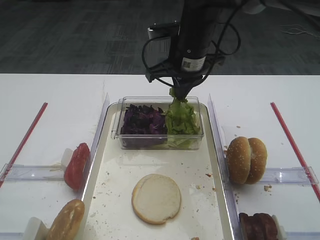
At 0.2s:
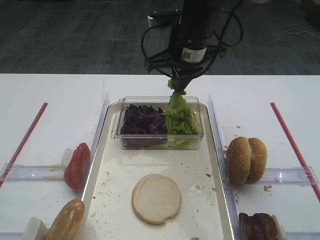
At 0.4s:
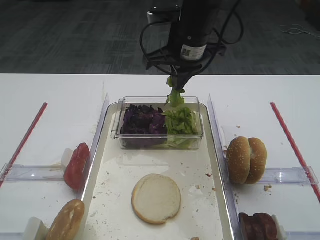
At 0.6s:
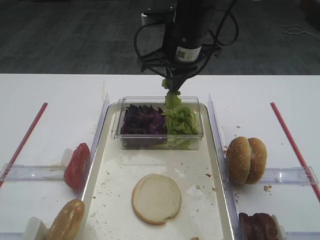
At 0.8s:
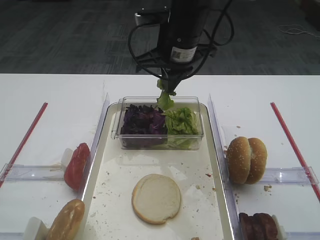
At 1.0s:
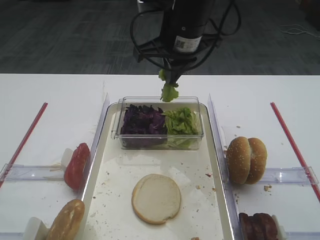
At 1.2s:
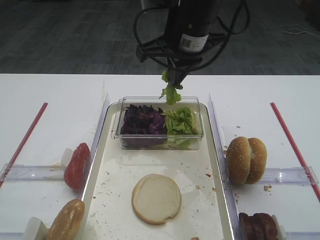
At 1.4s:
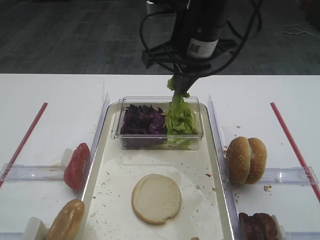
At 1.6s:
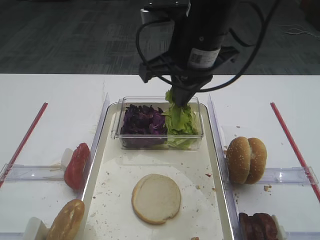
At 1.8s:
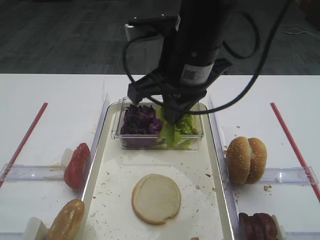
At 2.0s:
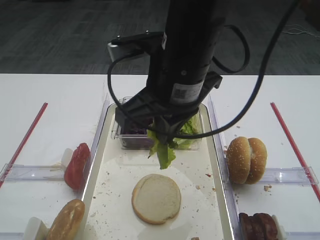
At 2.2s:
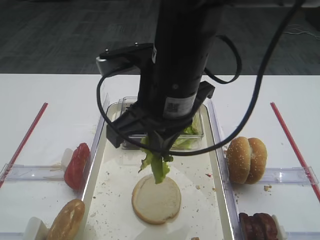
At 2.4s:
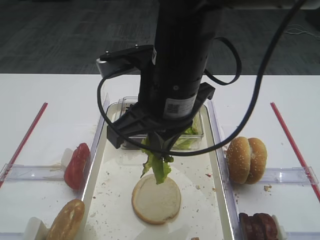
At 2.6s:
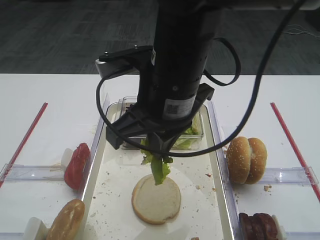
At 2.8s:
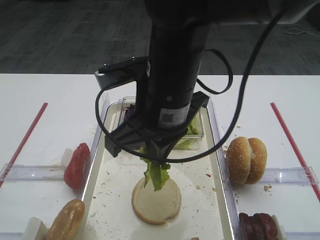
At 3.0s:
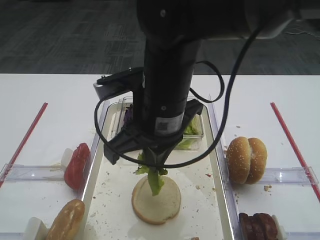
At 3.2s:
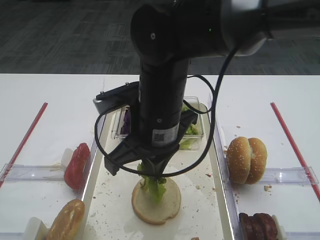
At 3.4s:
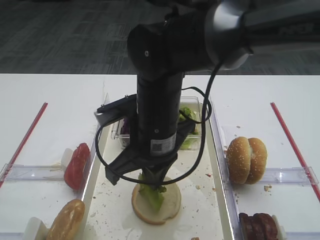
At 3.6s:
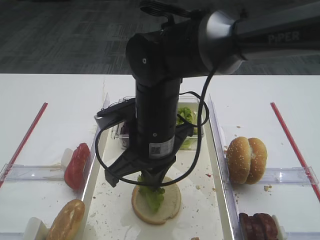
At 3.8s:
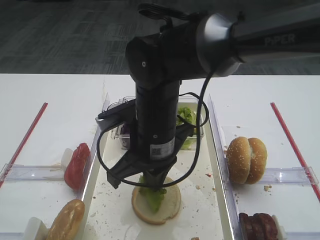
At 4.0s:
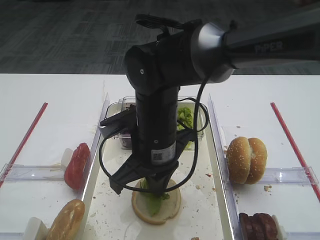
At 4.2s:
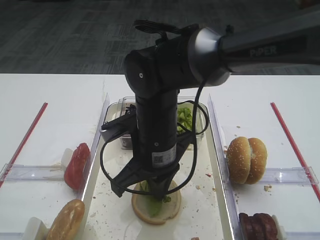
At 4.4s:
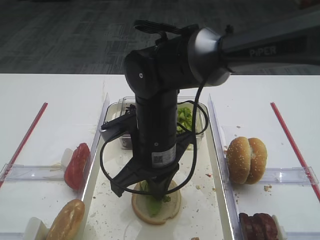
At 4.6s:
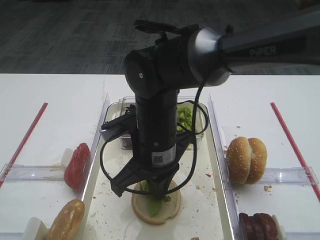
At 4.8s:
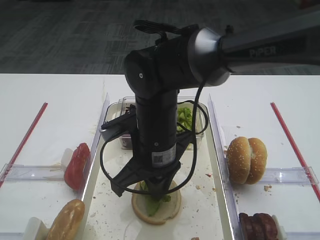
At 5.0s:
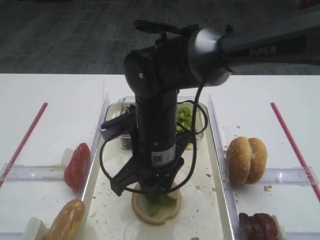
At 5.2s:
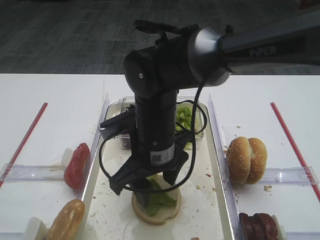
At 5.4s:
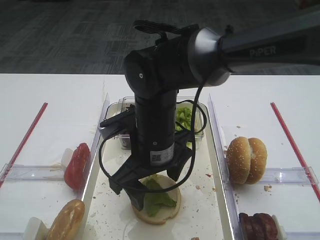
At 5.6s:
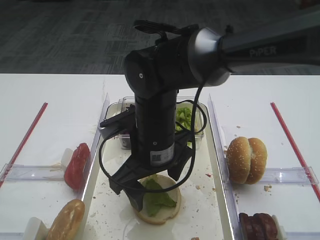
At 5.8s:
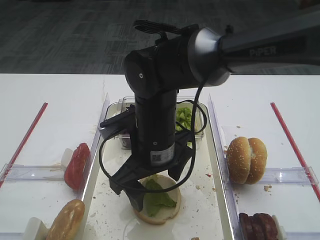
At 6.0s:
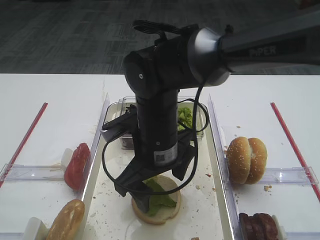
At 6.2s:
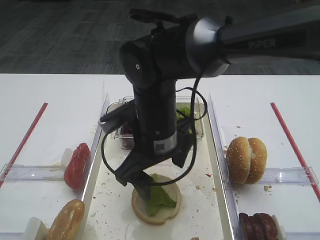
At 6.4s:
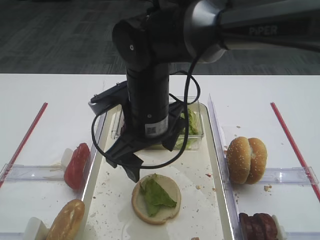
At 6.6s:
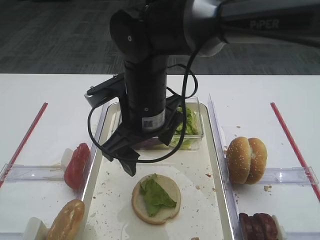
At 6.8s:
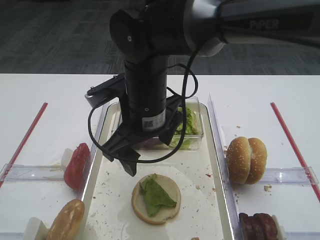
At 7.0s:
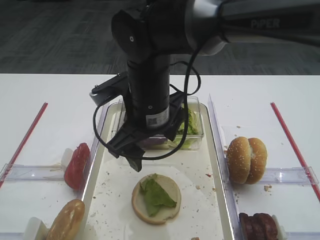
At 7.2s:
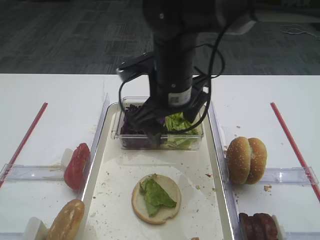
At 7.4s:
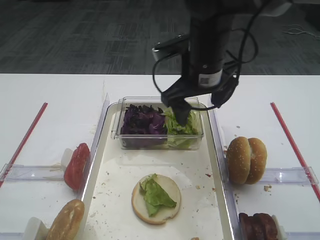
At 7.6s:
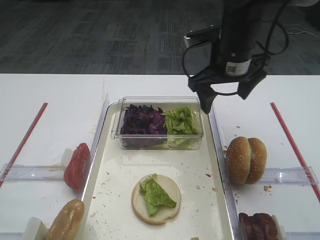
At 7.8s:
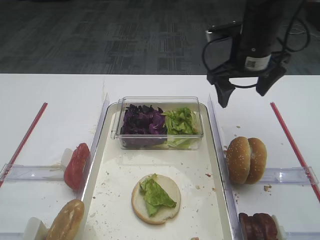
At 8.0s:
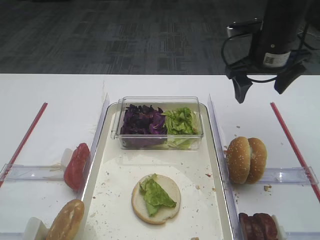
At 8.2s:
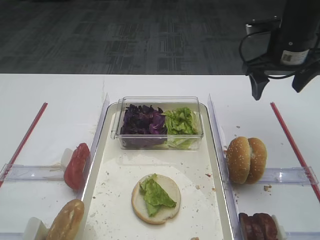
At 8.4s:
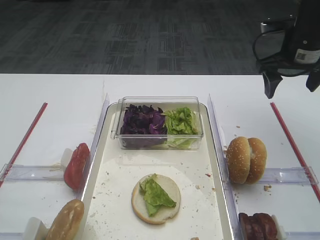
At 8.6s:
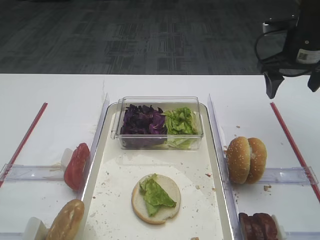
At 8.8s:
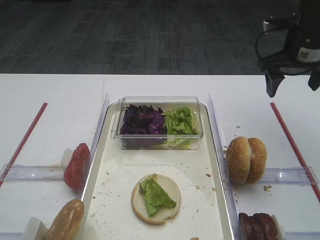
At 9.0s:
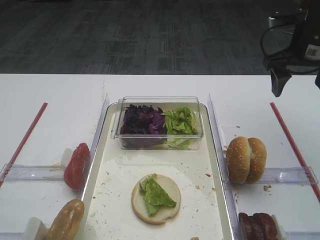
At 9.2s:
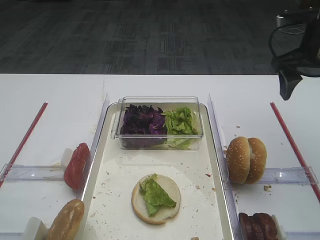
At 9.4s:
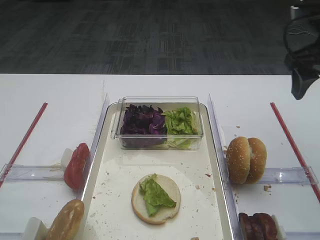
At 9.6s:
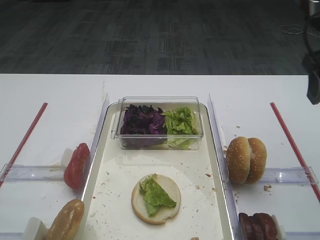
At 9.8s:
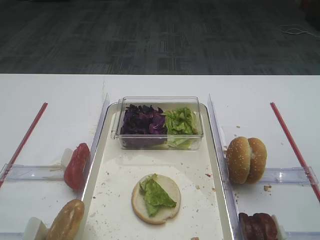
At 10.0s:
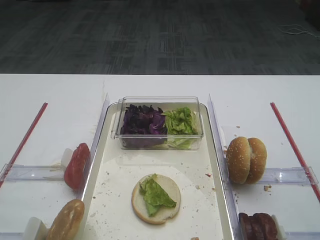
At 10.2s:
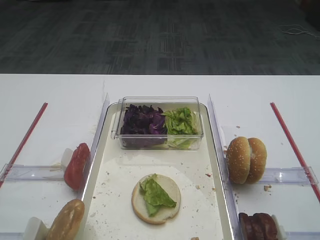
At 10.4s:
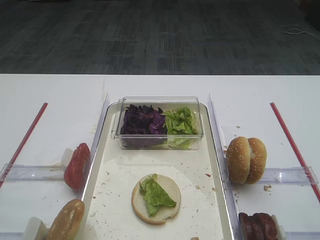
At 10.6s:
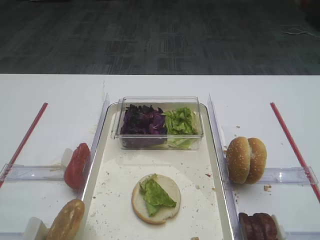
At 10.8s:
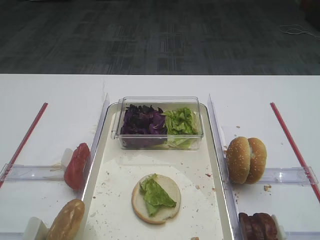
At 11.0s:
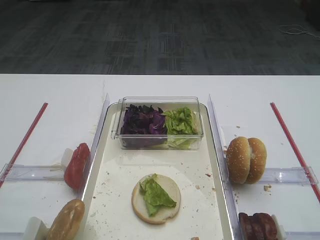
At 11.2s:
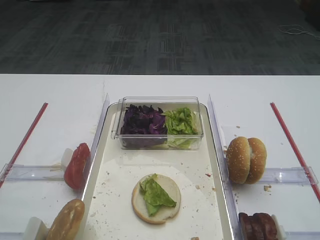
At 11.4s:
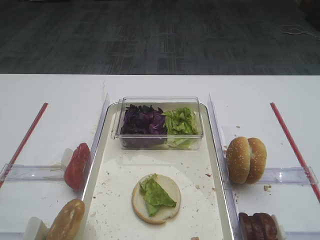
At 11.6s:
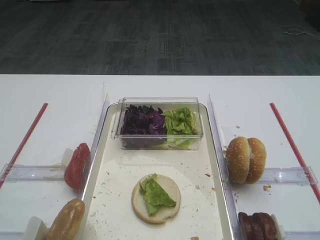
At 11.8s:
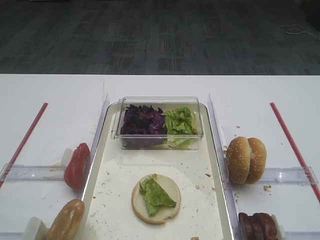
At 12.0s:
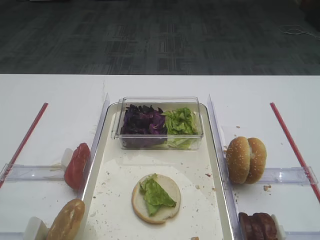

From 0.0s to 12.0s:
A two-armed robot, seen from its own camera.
Step, from 1.0s to 7.0s: Place the lettuce leaf on the bread slice with the right gripper.
From 0.0s to 1.6s: The right gripper shifts about 10 cm backward and upward.
From 1.6s to 3.0s: The right gripper is displaced backward and to the left by some 10 cm.
From 3.0s to 4.4s: The right gripper heads downward, covering some 10 cm.
From 4.4s to 6.0s: The right gripper opens its fingers.
From 6.0s to 7.6s: The right gripper heads to the right, forward and upward, covering roughly 15 cm.
From 7.6s to 9.0s: The right gripper is displaced to the right by about 15 cm.
From 9.0s to 10.4s: The right gripper heads backward, covering about 30 cm.

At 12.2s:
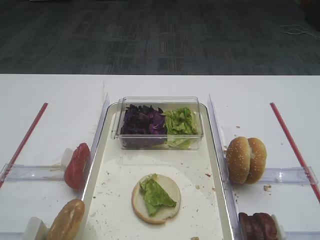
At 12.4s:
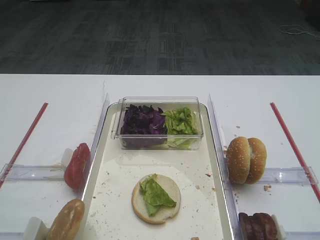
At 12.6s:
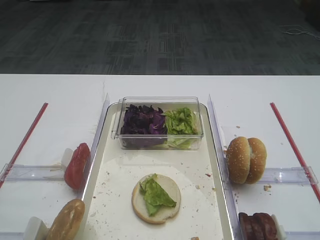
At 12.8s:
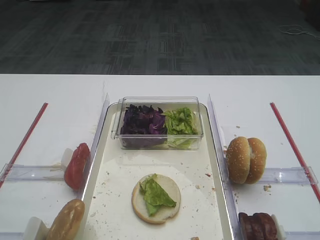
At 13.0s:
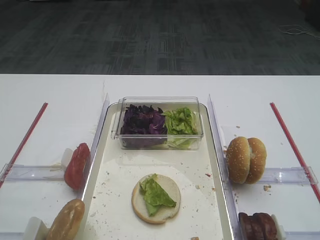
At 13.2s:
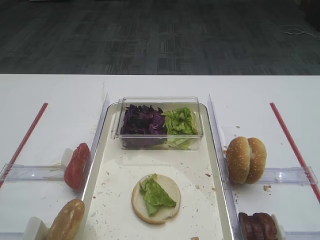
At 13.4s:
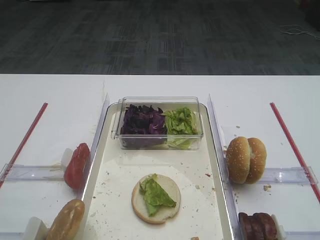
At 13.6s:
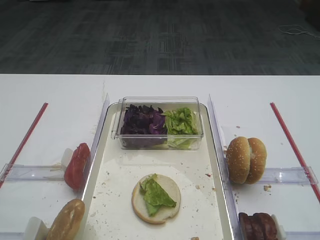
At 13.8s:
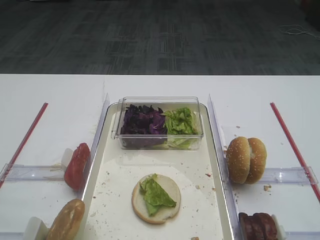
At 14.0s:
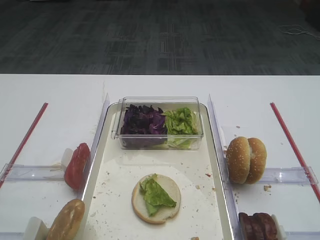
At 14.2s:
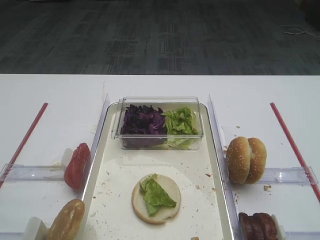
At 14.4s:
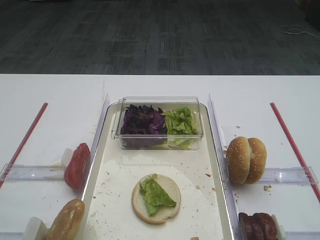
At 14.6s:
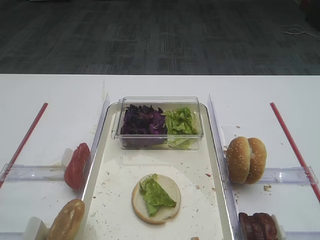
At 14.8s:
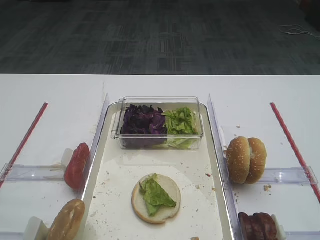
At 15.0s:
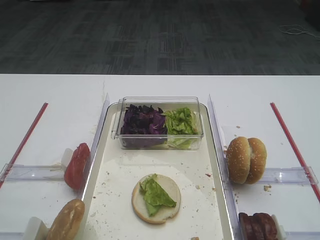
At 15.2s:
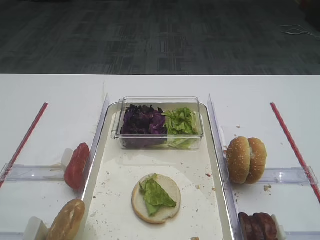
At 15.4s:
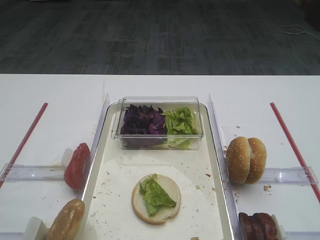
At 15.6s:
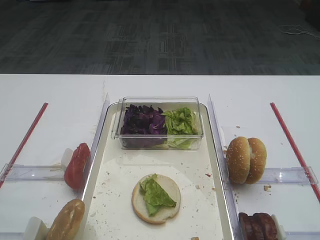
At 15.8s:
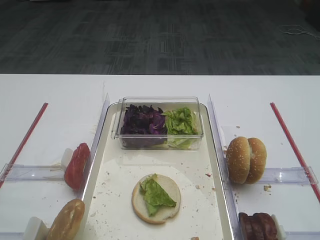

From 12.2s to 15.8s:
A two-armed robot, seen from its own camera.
From 12.2s to 15.8s: The two grippers keep their place.

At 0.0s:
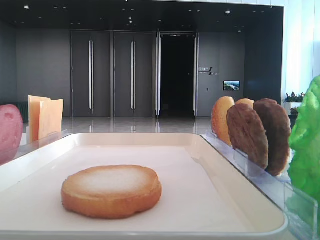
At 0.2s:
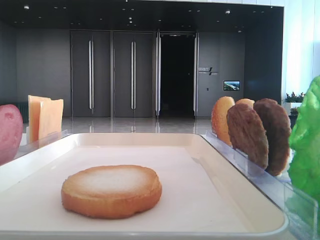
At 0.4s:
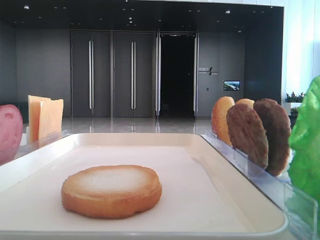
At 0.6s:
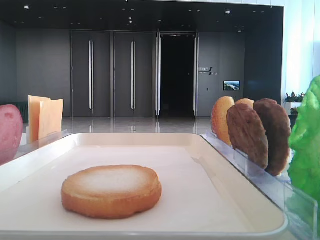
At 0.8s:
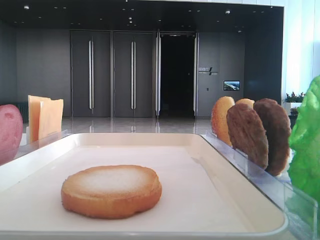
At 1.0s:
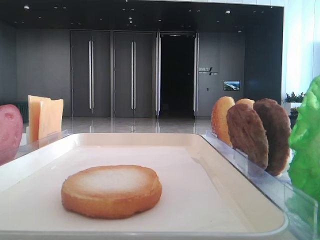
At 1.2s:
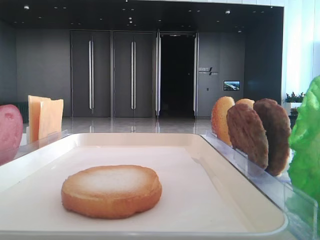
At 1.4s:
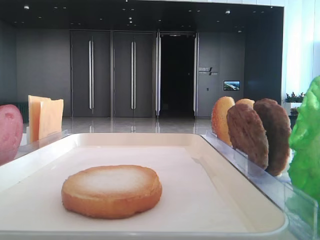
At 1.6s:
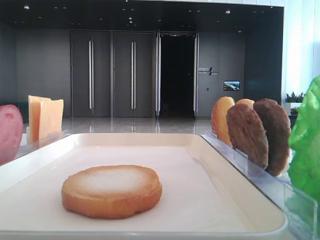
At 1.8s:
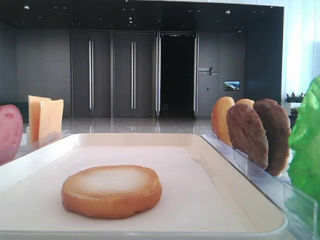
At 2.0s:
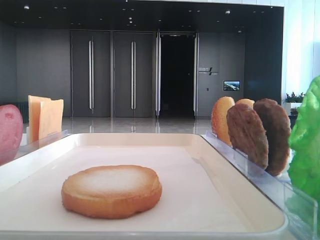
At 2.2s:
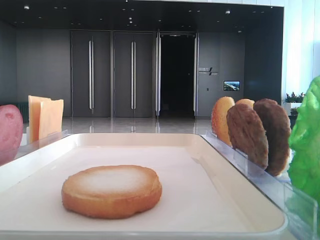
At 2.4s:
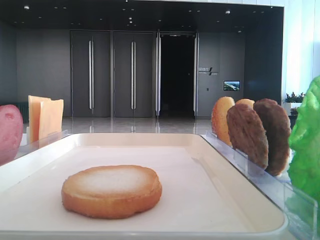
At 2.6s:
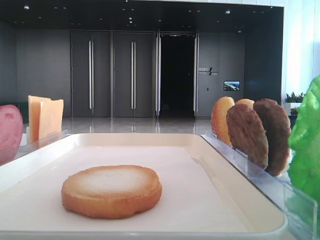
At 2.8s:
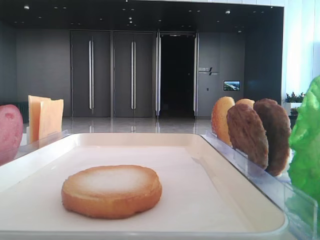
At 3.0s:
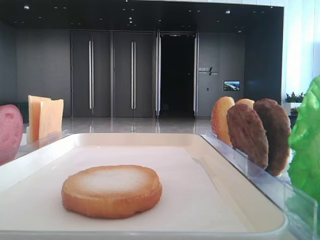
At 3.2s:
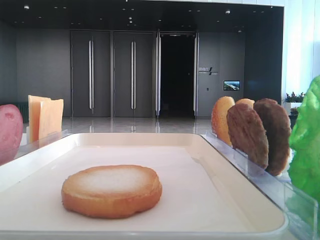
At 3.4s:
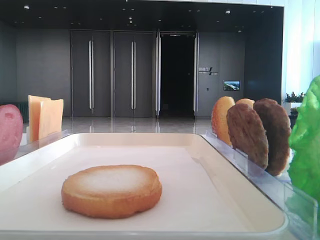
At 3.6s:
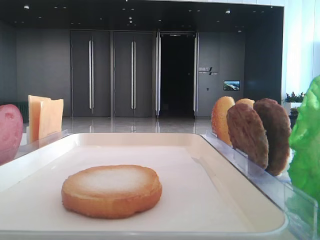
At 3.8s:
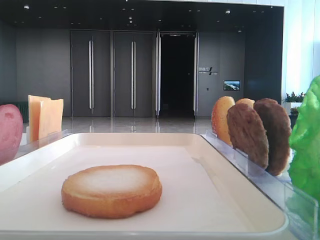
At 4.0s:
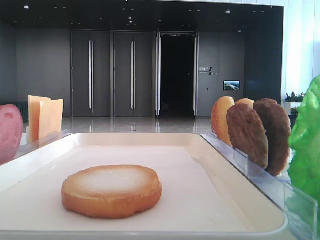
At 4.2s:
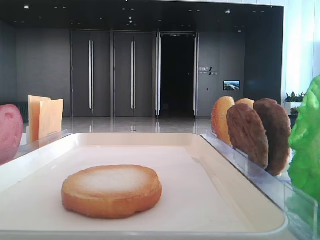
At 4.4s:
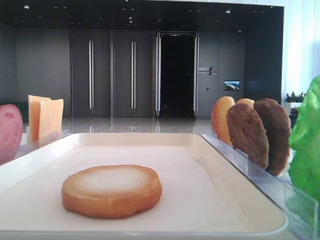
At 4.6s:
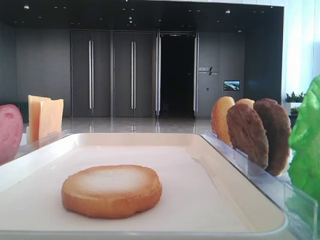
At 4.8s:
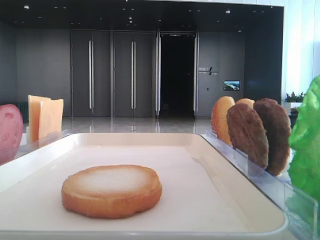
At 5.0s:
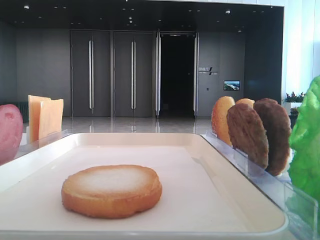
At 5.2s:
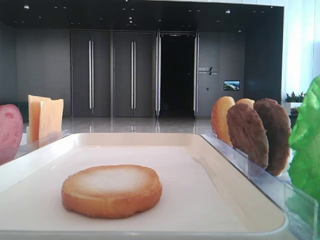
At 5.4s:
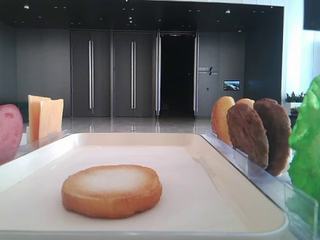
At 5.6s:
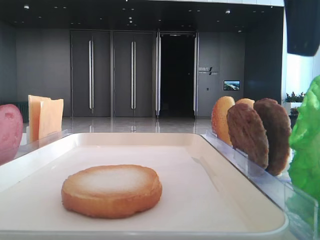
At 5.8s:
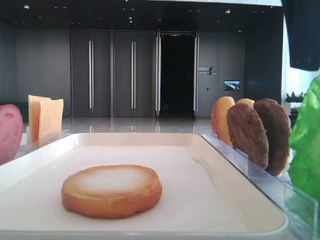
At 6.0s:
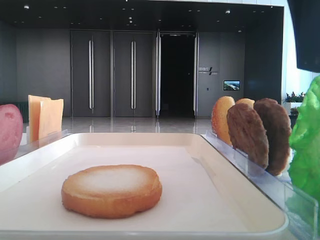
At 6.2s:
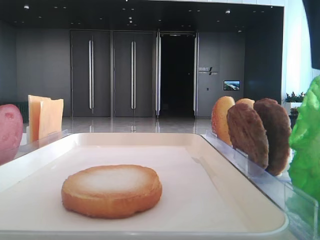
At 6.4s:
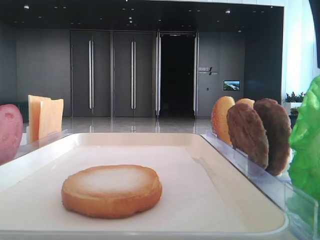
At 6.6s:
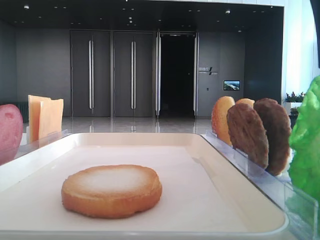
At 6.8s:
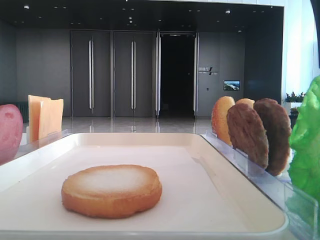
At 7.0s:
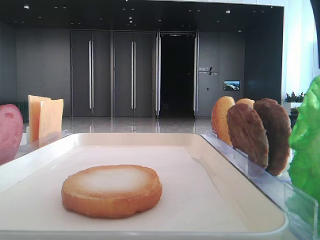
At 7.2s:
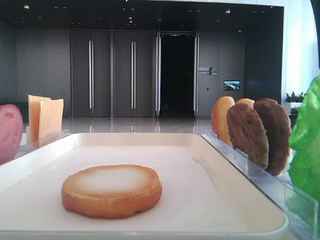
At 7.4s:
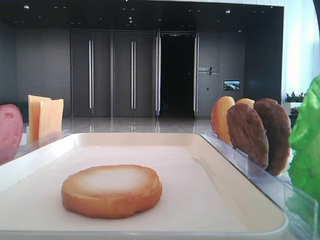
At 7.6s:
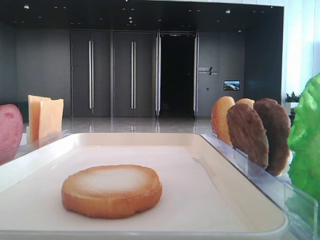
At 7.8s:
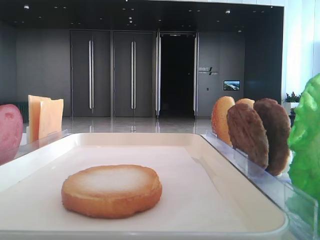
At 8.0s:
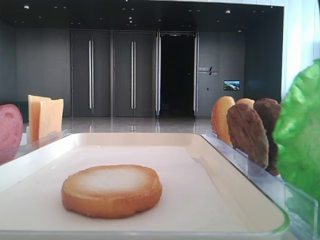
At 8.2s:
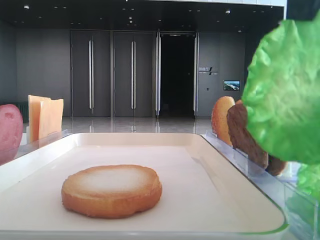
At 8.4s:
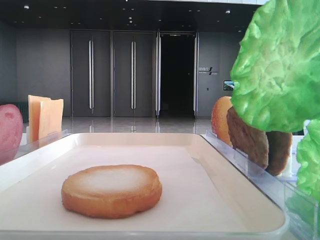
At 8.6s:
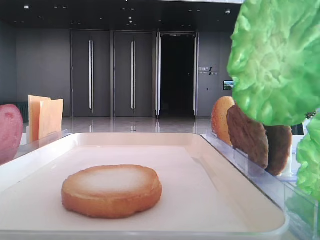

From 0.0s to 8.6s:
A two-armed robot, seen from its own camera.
Step, from 0.0s to 7.8s: Grab the lettuce leaf with the right hand.
From 4.4s to 5.8s: The right gripper is displaced to the left and downward by about 10 cm.
From 5.8s to 7.2s: The right gripper closes its fingers.
From 7.2s to 8.6s: The right gripper is displaced upward by roughly 5 cm, and closes.
